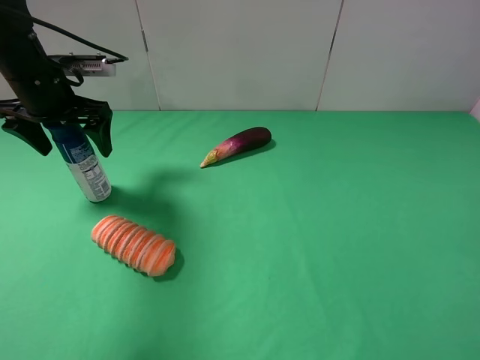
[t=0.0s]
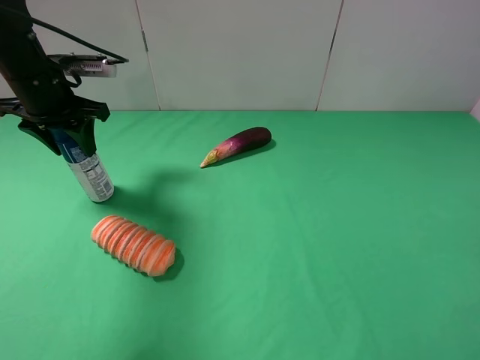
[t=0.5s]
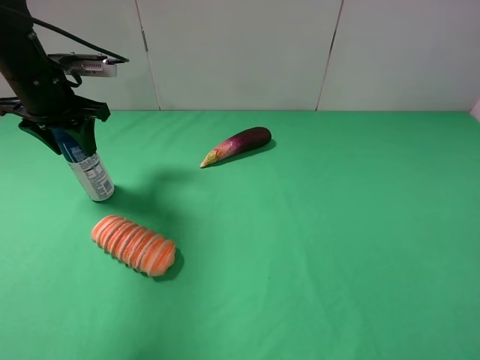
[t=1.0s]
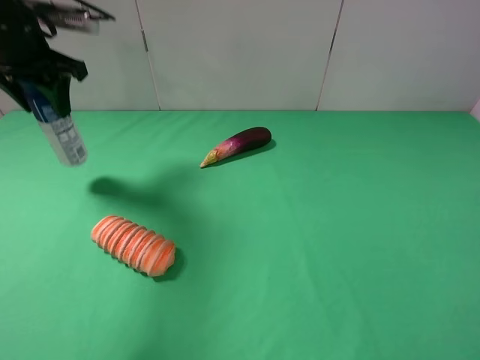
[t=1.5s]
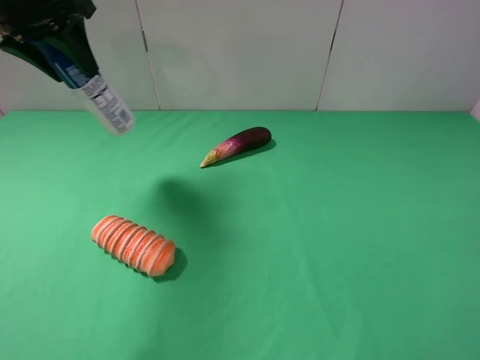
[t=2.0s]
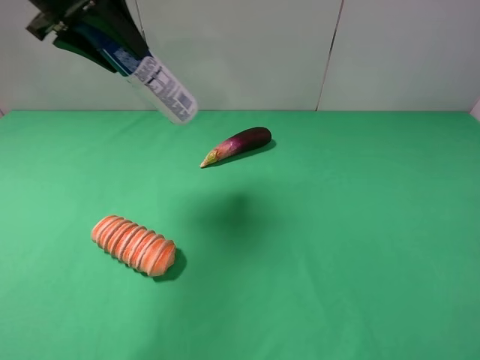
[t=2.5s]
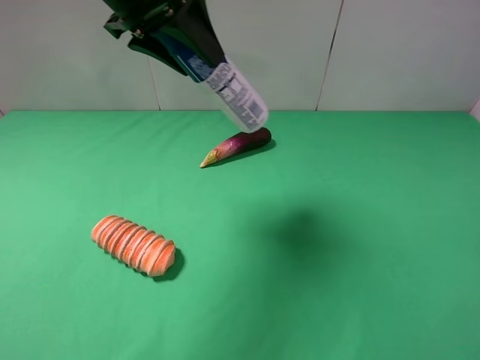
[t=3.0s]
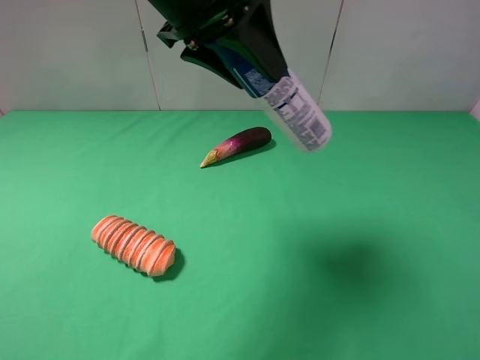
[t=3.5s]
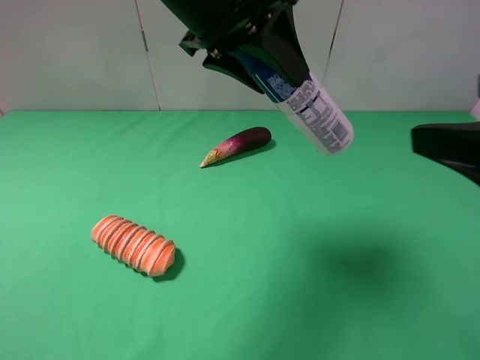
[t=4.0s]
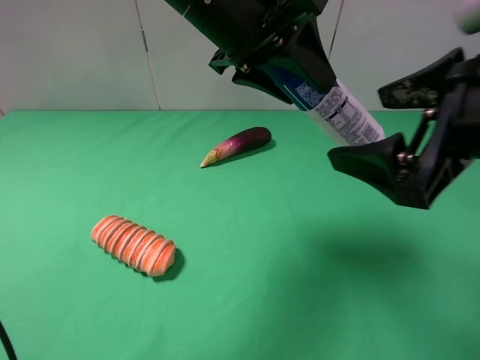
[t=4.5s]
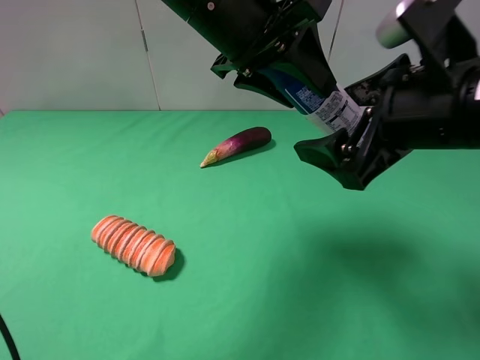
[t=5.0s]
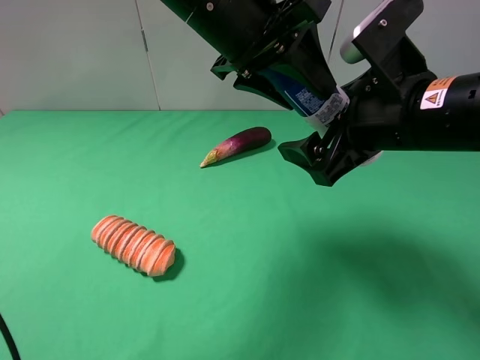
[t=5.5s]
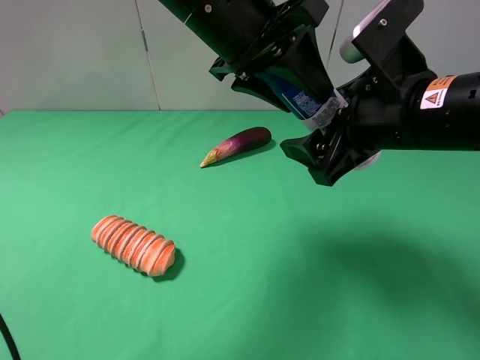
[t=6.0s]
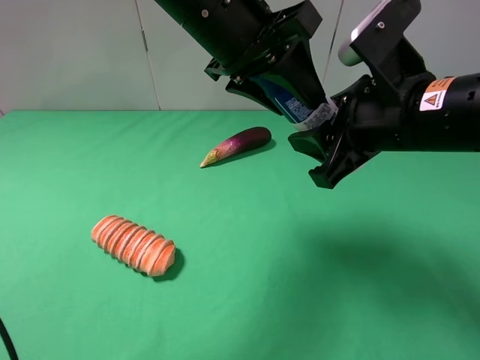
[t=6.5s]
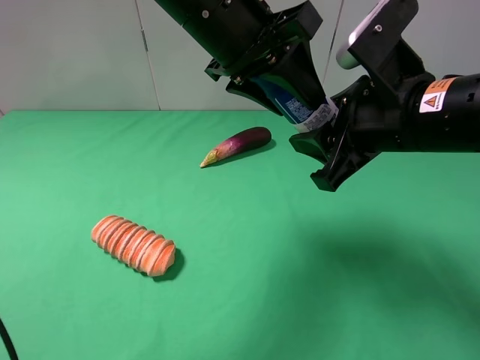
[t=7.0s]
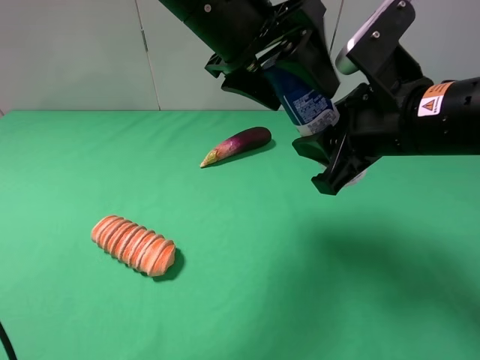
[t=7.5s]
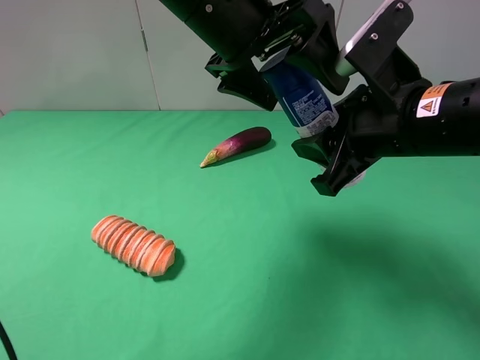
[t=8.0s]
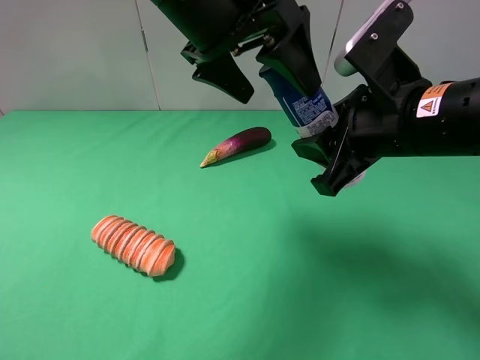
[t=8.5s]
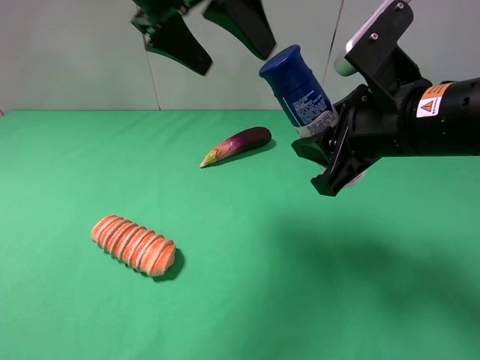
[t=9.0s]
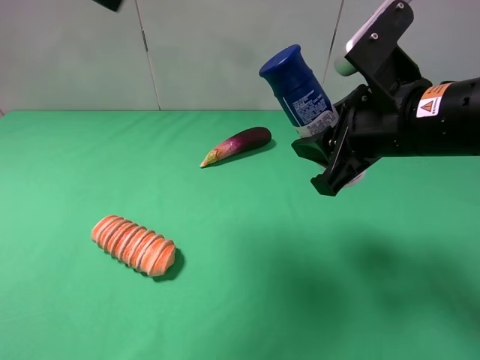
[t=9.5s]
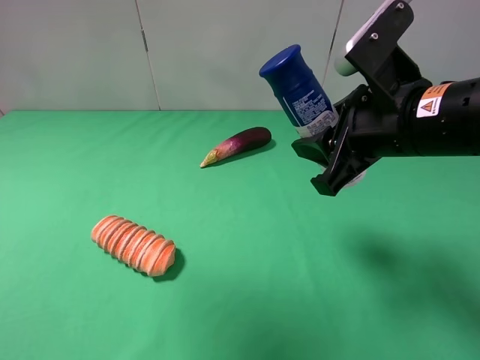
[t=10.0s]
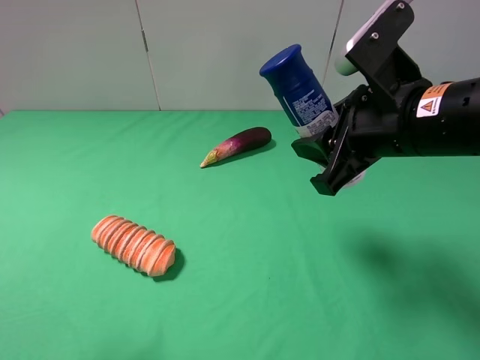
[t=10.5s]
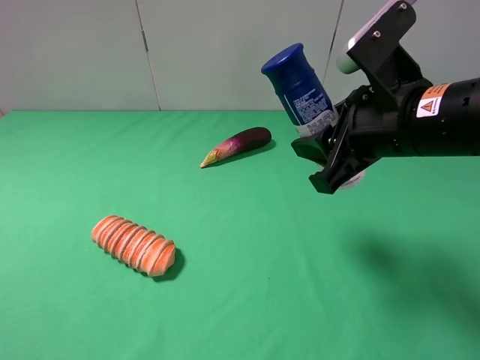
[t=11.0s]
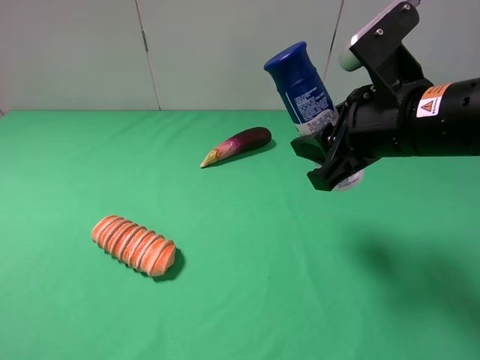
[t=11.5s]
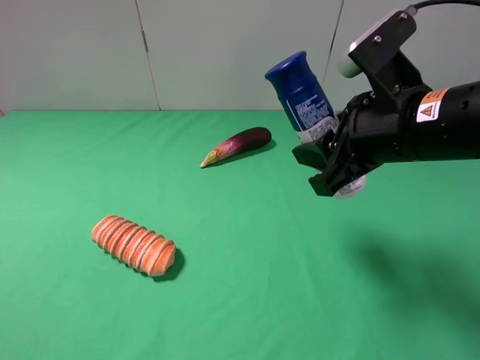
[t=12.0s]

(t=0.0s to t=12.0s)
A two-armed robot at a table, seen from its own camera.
Task of the whole recording: use the left gripper to pick up the item and transfer it from the left gripper to the right gripper.
Step, t=1.0s - t=7.5s: Pass the yogurt to the right gripper.
t=0.0s - t=2.0s: The left gripper moves upward, roughly 10 cm, and closes up.
t=2.0s - t=4.0s: The right gripper travels forward and to the left by approximately 10 cm. The left gripper goes approximately 20 cm to the right.
t=4.0s - t=6.0s: The right gripper shifts some 15 cm forward, to the left and downward.
t=6.0s - t=8.0s: The right gripper closes its fingers; the left gripper opens.
t=8.0s - t=10.0s: The left gripper shifts roughly 30 cm to the left, upward and backward.
t=10.0s - t=12.0s: The left gripper heads backward, downward and to the left, covering about 25 cm.

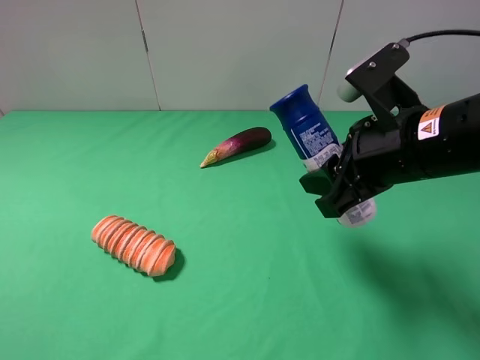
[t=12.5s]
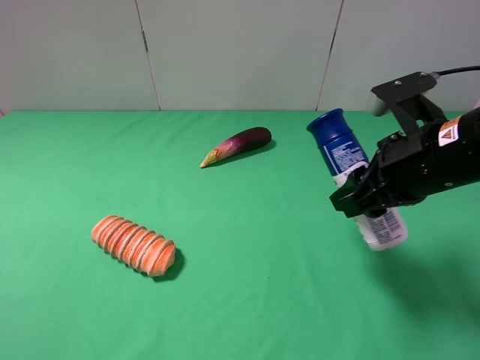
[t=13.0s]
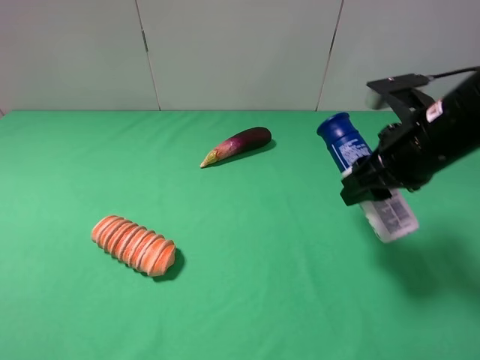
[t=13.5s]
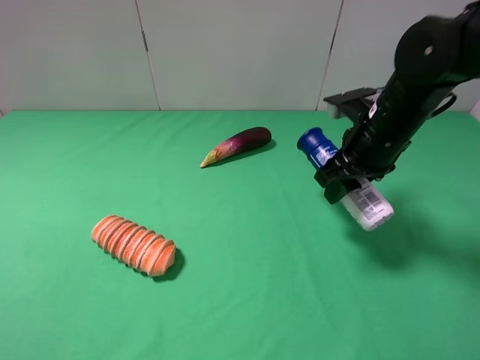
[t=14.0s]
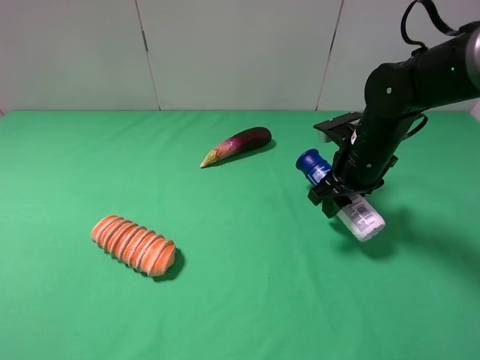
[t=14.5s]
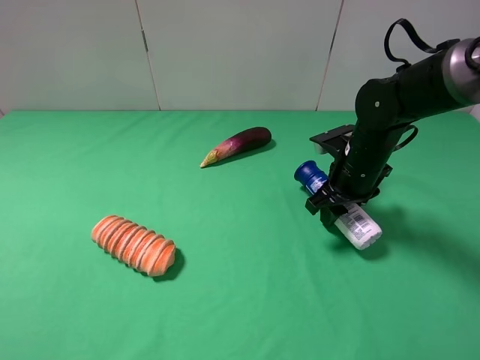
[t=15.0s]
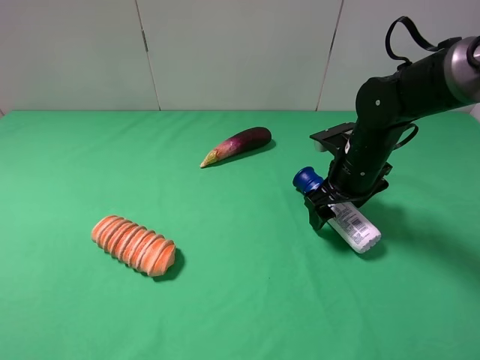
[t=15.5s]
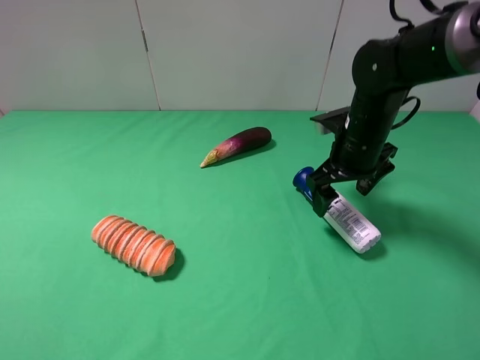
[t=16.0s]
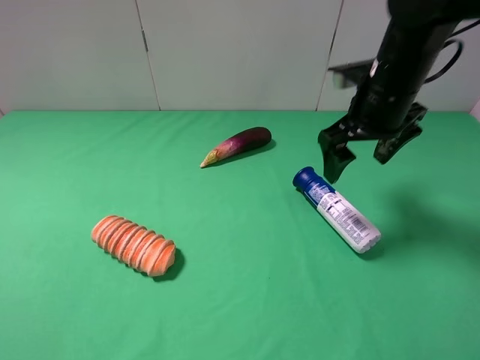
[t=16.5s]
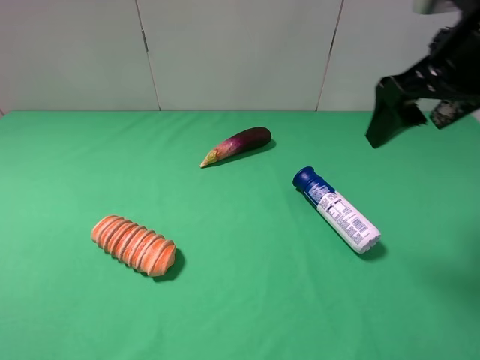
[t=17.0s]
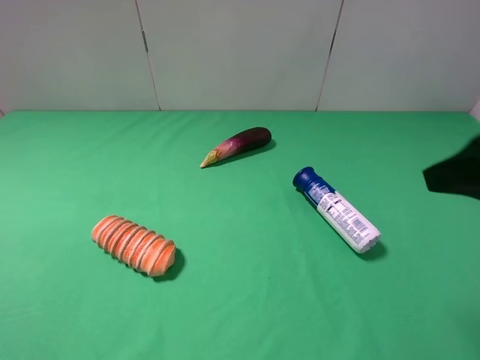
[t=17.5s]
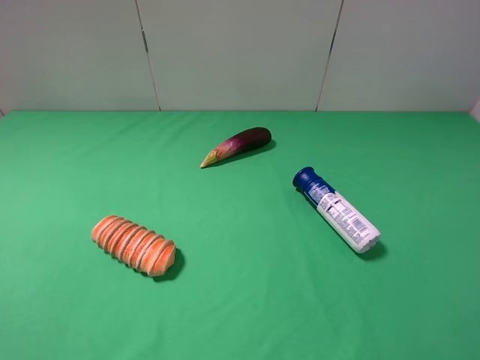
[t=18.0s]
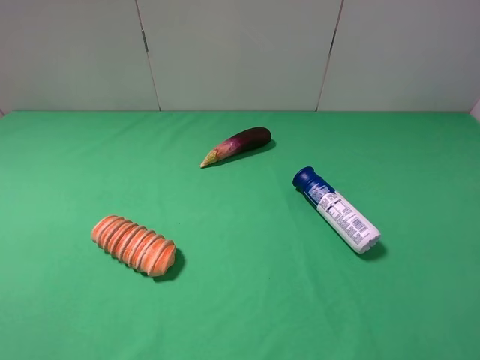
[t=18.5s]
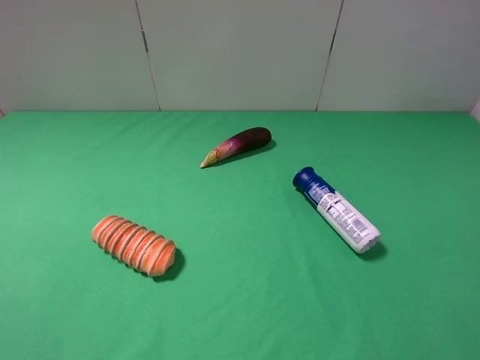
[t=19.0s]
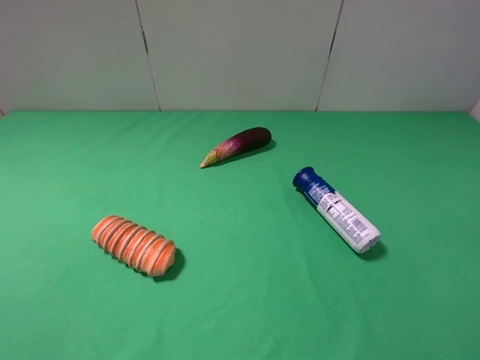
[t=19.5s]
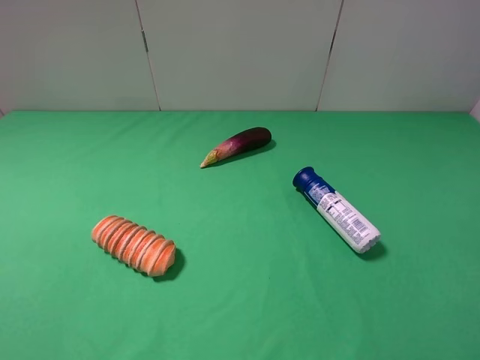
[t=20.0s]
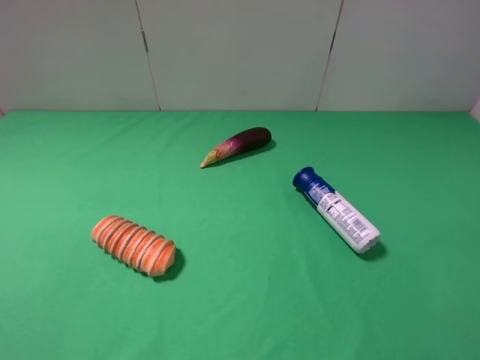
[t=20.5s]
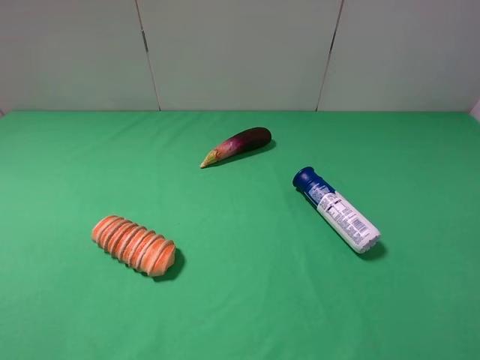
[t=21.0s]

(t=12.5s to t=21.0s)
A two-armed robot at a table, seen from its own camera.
Task of the whole recording: use the left gripper to pick up the item and transfer it from the left gripper to the right gripper.
Step, t=12.5s - t=15.5s: The right gripper places yogurt on the right side of the table.
t=12.5s - t=14.5s: The right gripper is displaced forward and downward by some 15 cm.
t=14.5s - t=16.5s: The right gripper goes roughly 10 cm upward, and opens its fingers.
t=16.5s - t=19.0s: The right gripper shifts roughly 35 cm backward and to the right.
